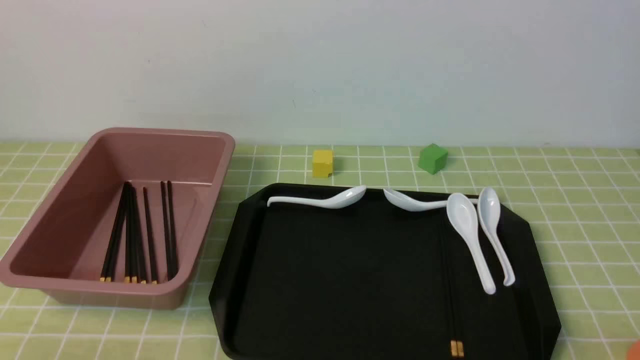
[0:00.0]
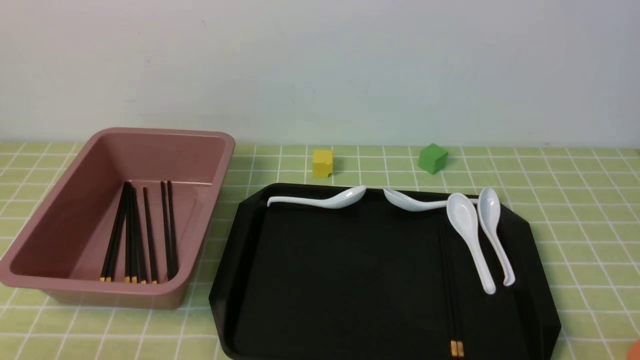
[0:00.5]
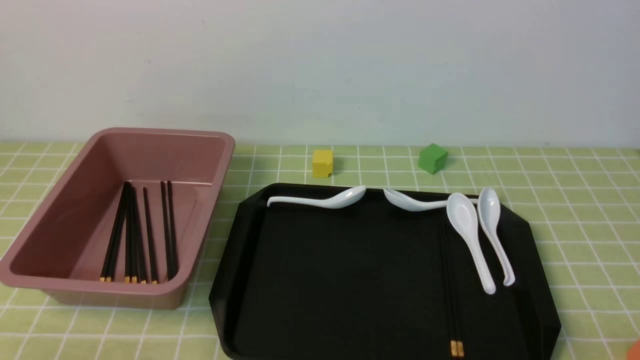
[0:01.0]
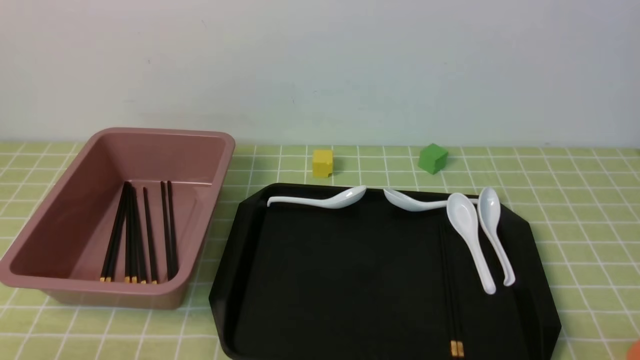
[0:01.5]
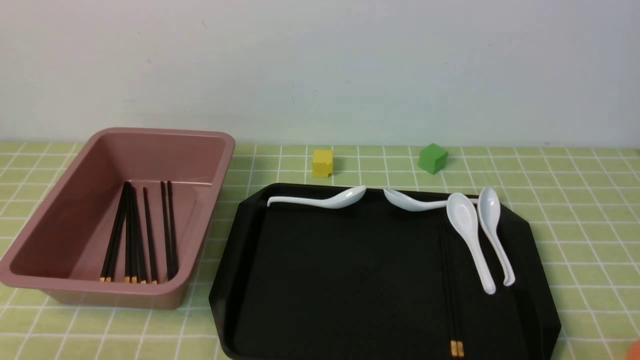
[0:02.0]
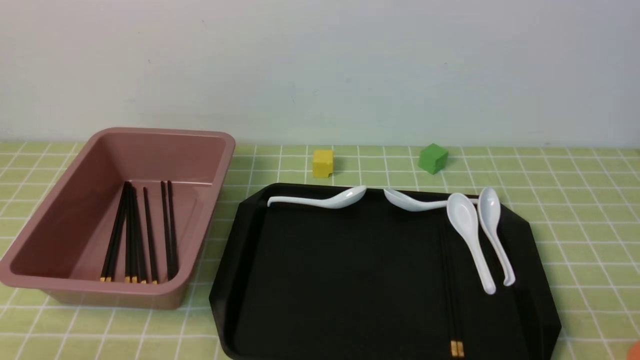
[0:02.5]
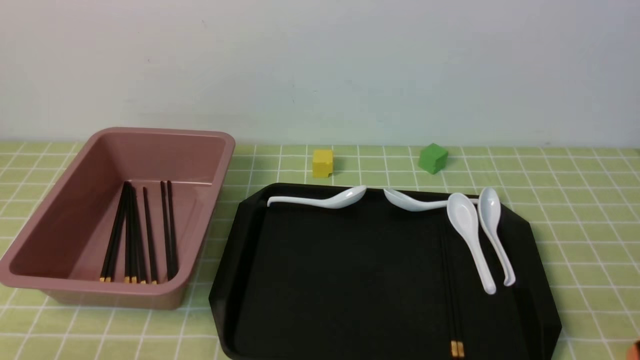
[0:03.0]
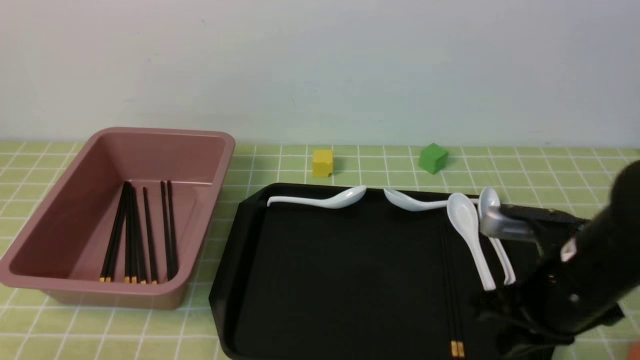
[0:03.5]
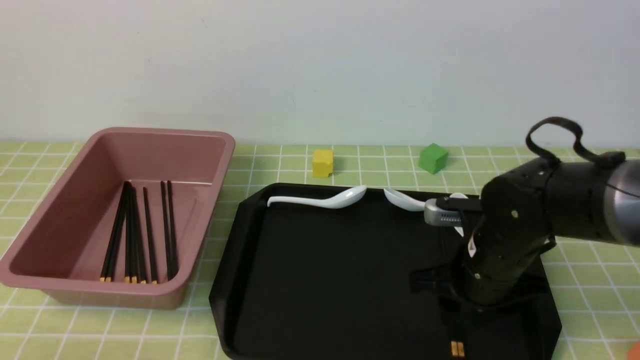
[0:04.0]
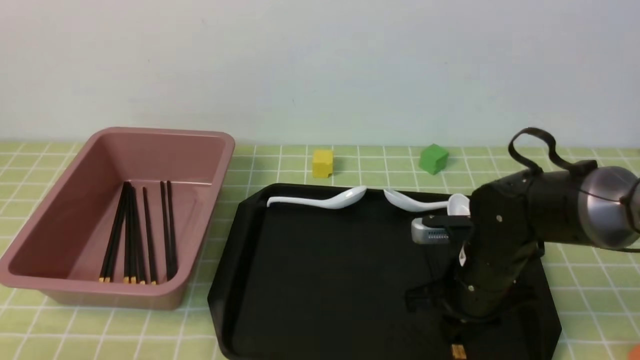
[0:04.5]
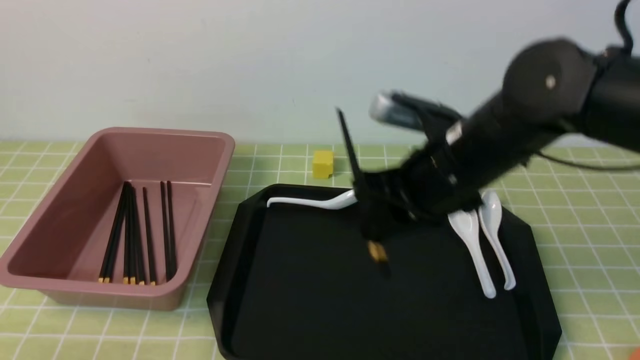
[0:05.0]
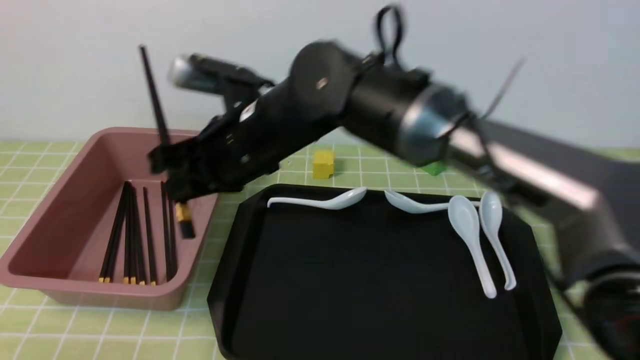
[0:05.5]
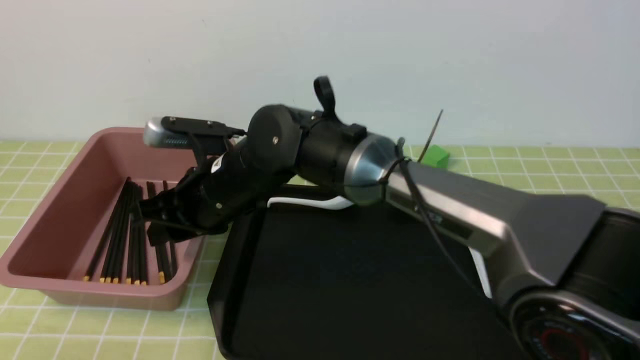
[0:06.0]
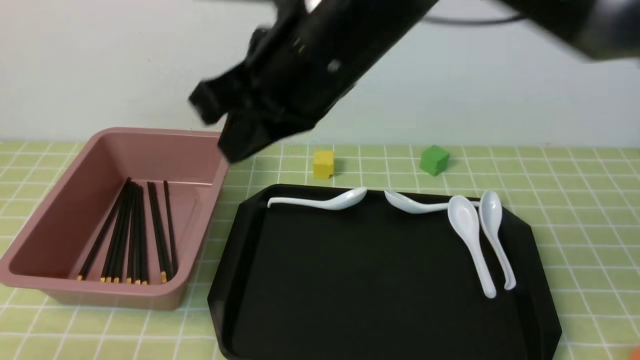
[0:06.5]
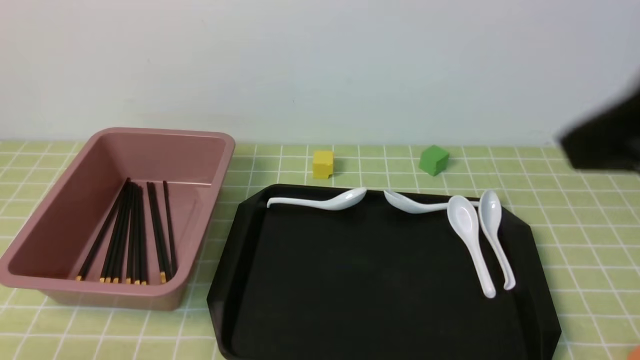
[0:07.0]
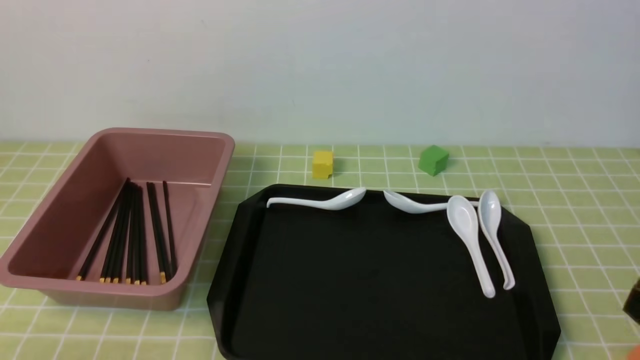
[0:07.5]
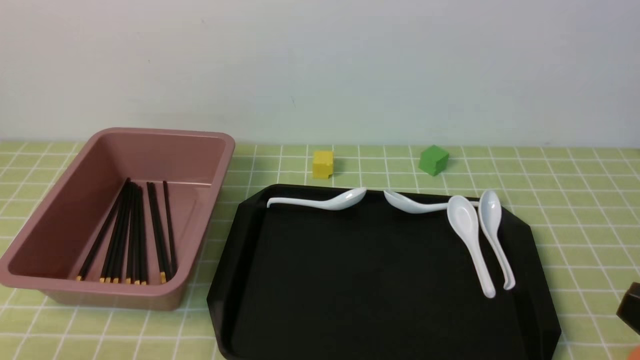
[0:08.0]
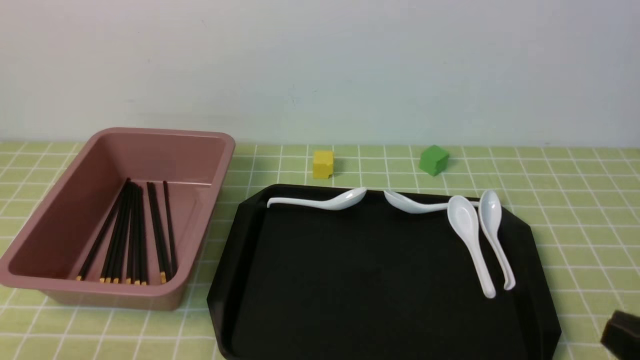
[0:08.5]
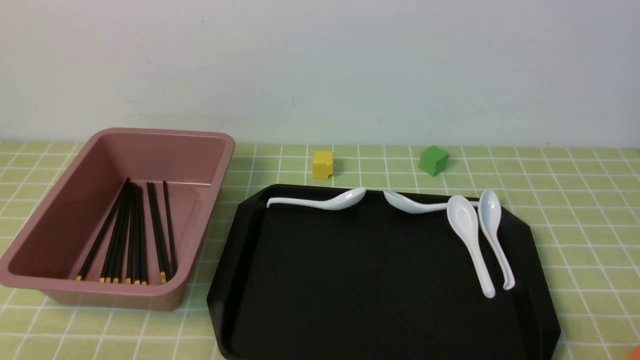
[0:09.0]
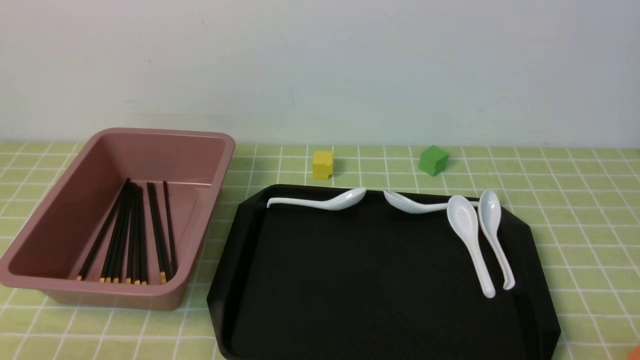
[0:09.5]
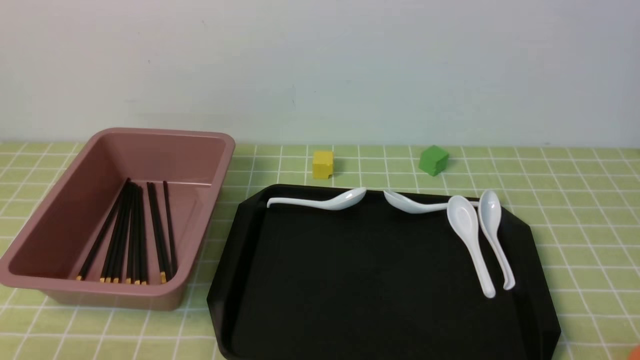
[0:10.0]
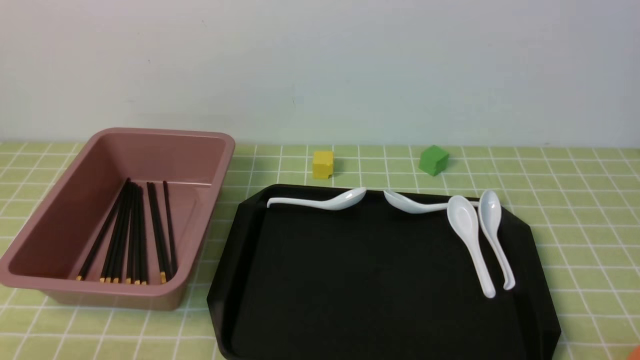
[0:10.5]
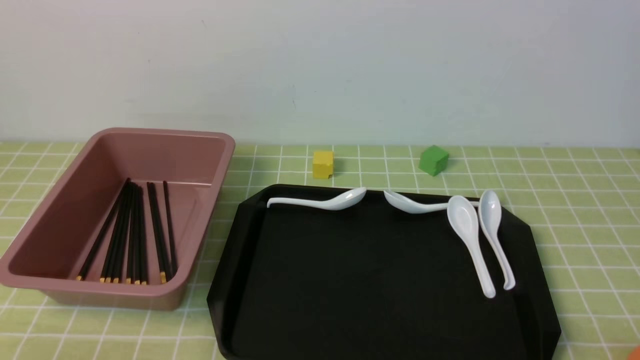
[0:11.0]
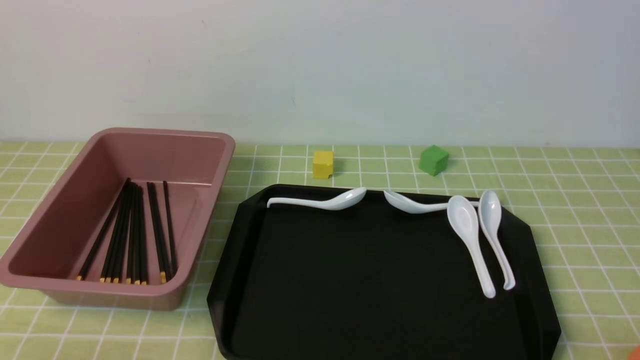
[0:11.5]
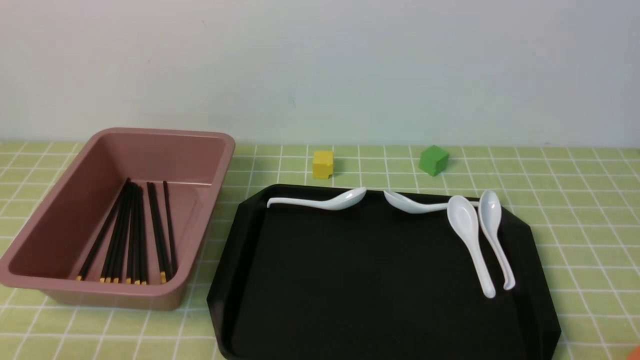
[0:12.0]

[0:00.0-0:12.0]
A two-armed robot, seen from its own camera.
Step, 0:00.0 to 0:04.5: use the right arm to grab a pair of chopsticks.
Step, 0:05.0 to 0:06.0: use the right arm to put the chopsticks into the lunch box.
0:02.0 to 0:04.0: The right gripper heads forward and to the left, covering approximately 30 cm, and closes, then opens again.
0:04.0 to 0:06.0: The right gripper moves to the left, some 25 cm.
0:06.0 to 0:08.0: The right gripper heads to the right and backward, covering approximately 50 cm, and closes its fingers.
0:10.0 to 0:12.0: Neither gripper changes place.

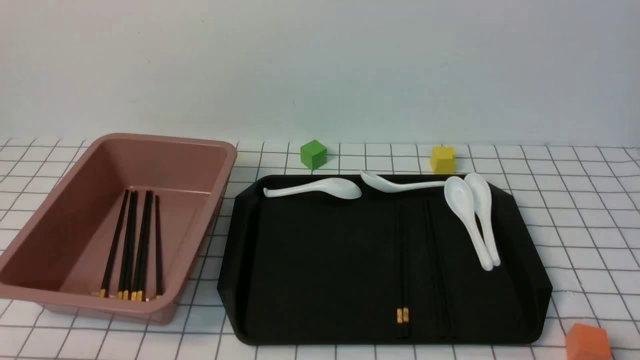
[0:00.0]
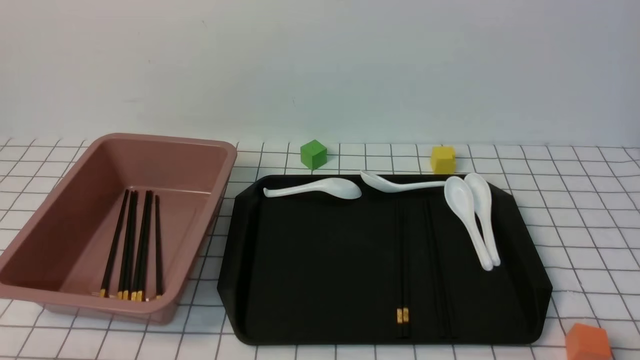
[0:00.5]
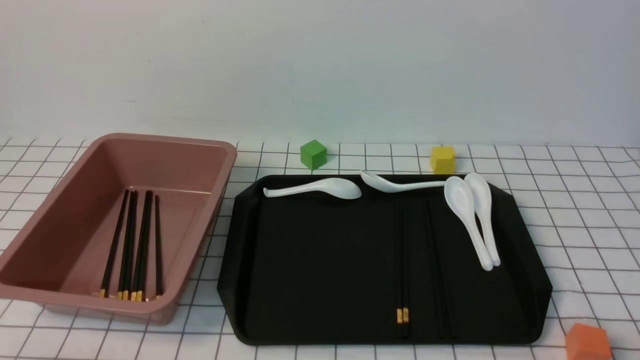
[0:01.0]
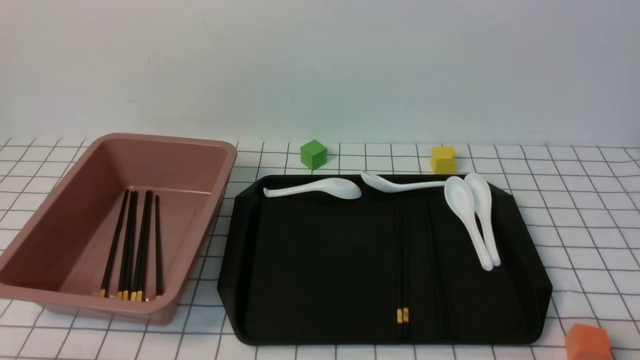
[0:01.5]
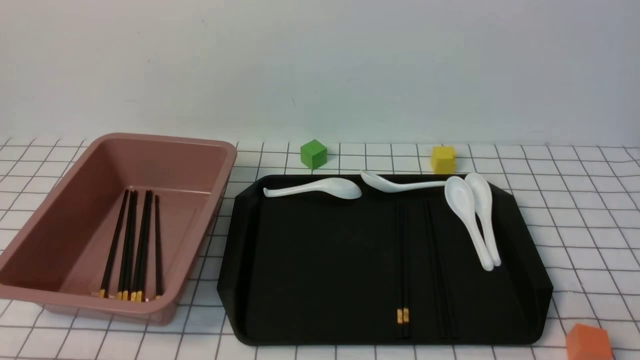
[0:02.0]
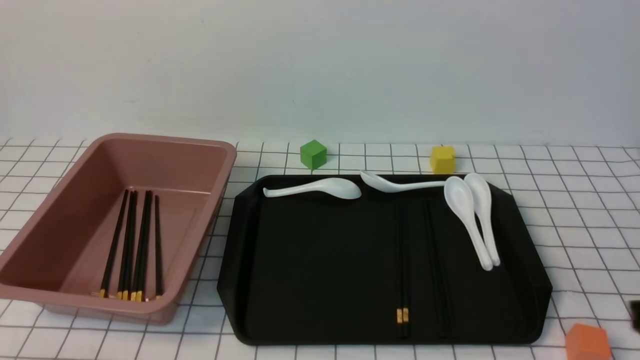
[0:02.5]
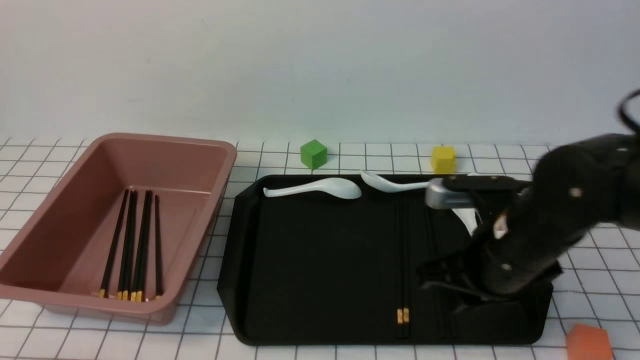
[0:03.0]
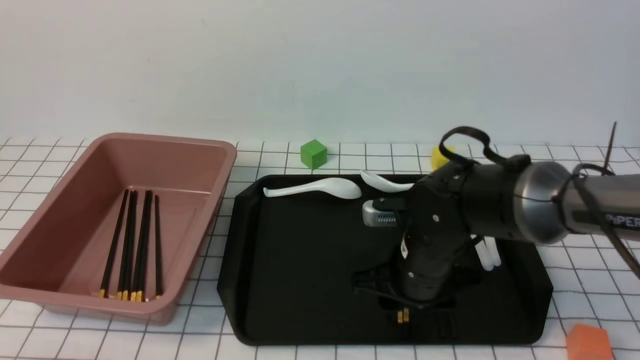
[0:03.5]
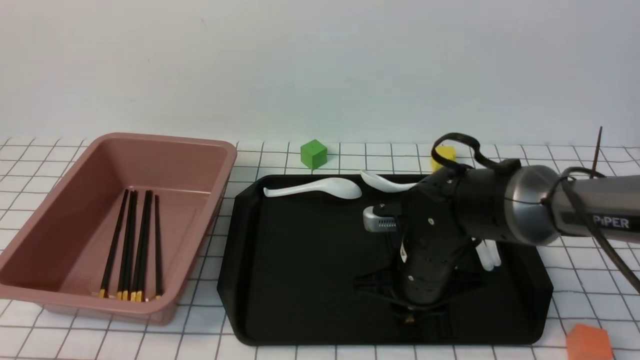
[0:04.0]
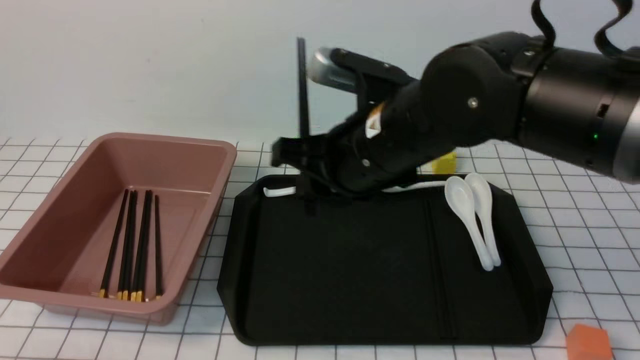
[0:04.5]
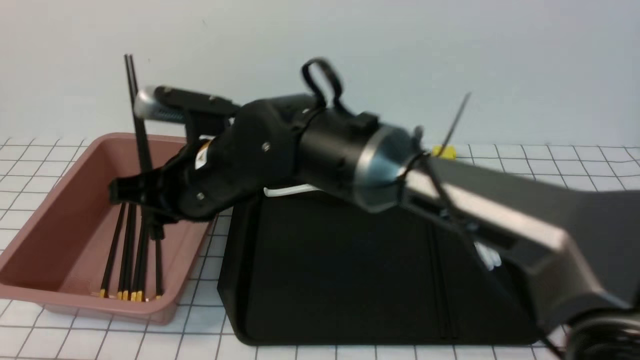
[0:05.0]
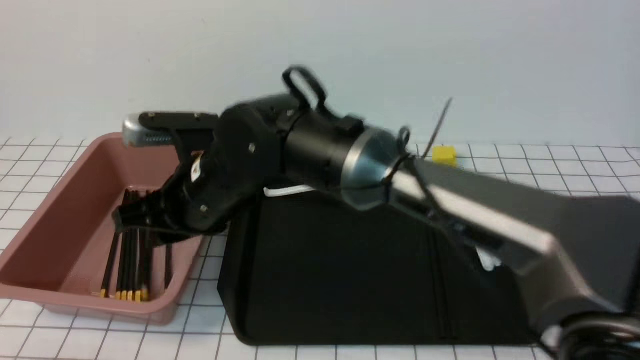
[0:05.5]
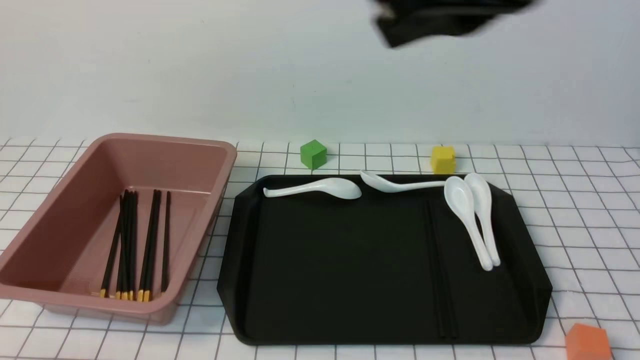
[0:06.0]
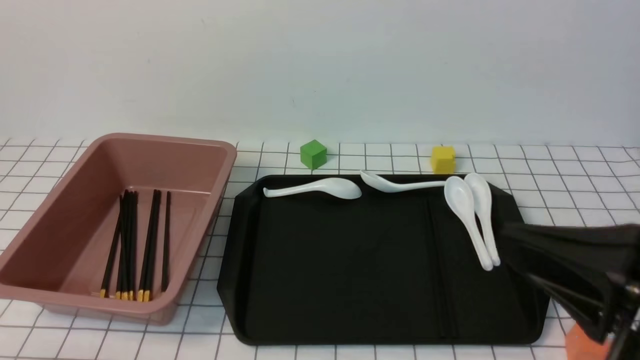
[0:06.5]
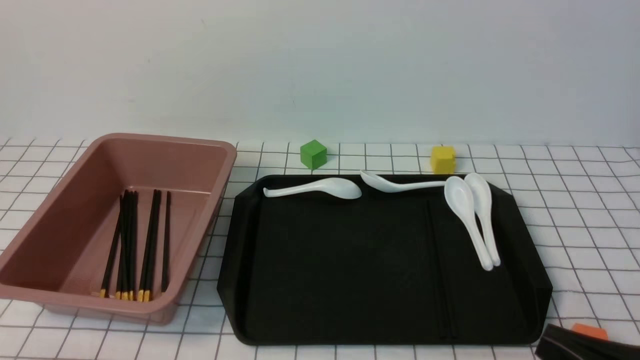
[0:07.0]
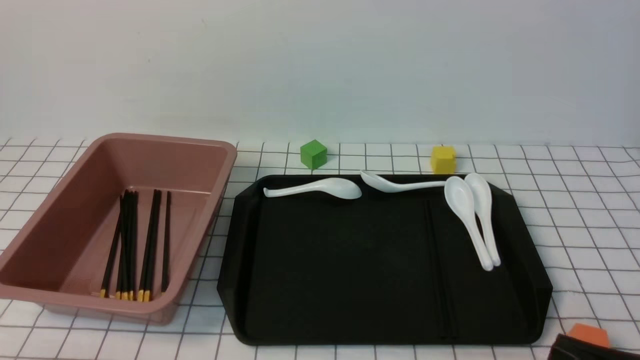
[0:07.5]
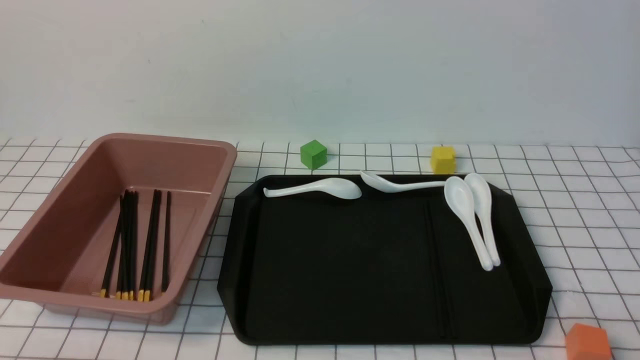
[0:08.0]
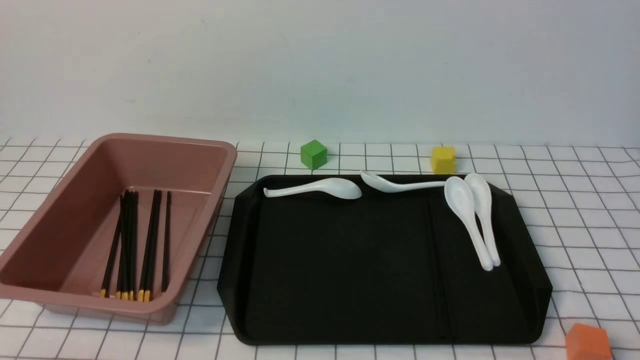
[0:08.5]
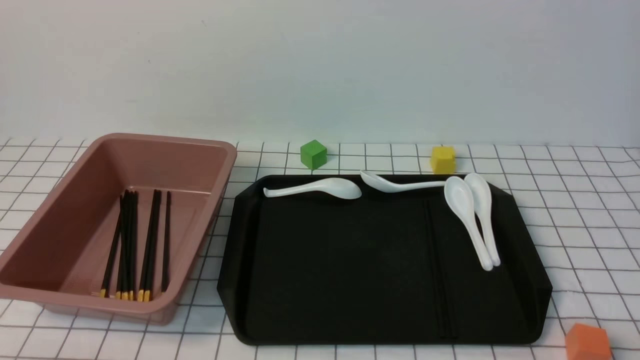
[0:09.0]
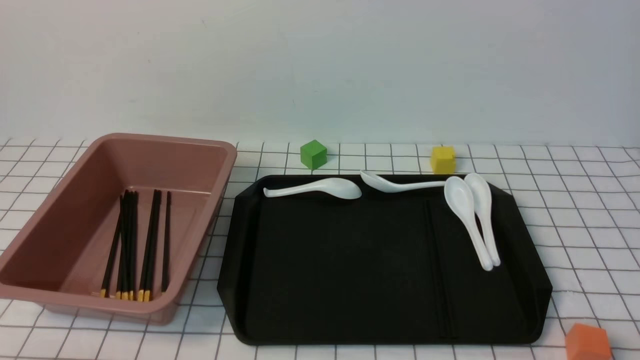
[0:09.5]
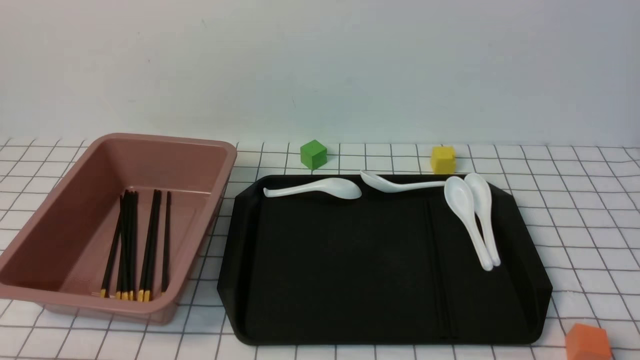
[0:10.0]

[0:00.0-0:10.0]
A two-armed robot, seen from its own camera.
Step, 0:00.0 to 0:04.0: use the right arm to grab a pair of chopsticks.
Step, 0:04.5 to 0:05.5: use the right arm to put the chopsticks into the lunch box.
0:02.0 to 0:04.0: The right gripper goes approximately 35 cm forward and to the left, and opens, then closes again.
0:04.0 to 0:06.0: The right gripper moves upward, roughly 30 cm, and closes up.
0:06.0 to 0:08.0: The right gripper shifts roughly 35 cm downward, to the right and backward.
